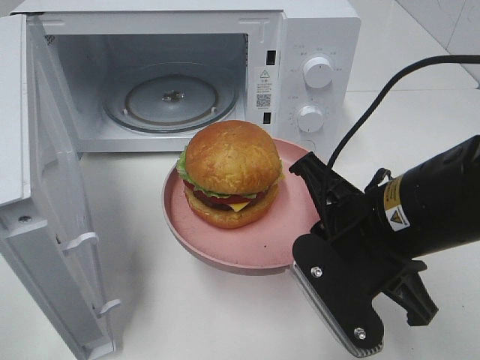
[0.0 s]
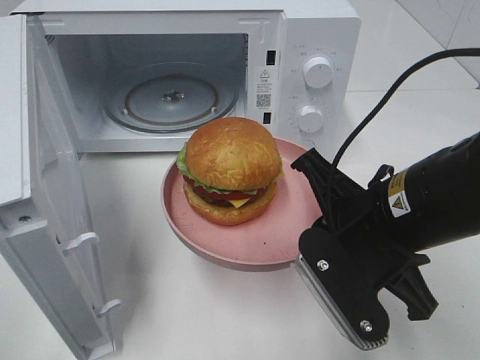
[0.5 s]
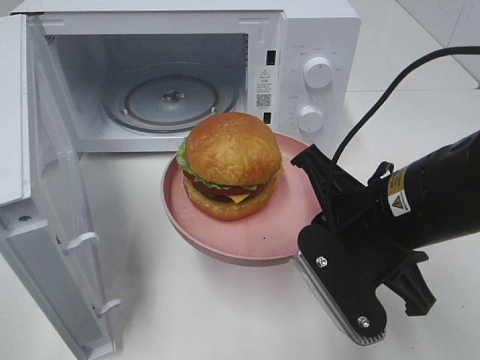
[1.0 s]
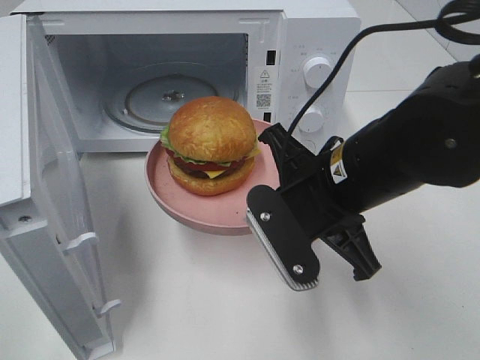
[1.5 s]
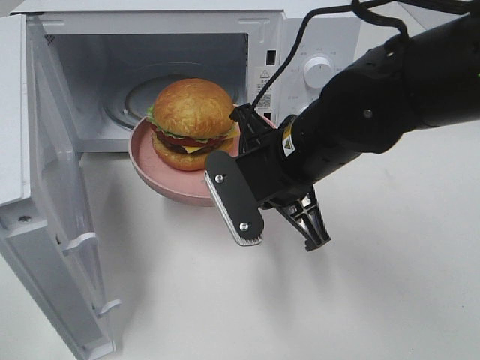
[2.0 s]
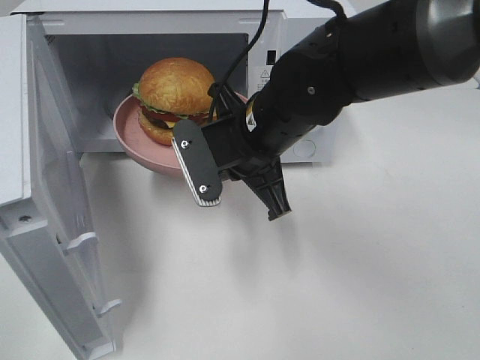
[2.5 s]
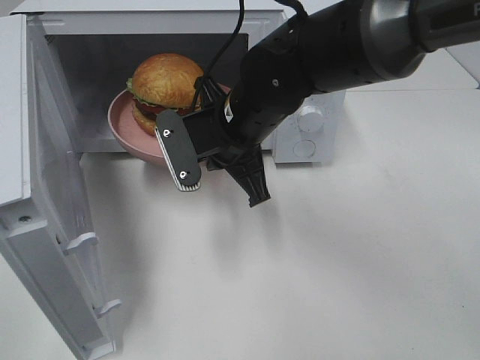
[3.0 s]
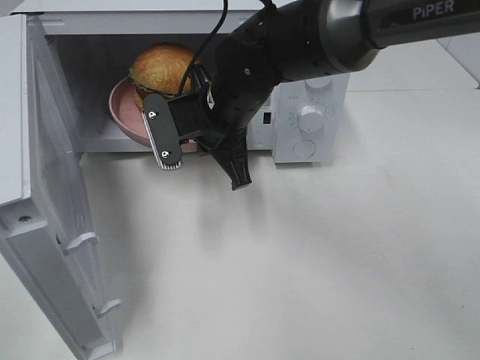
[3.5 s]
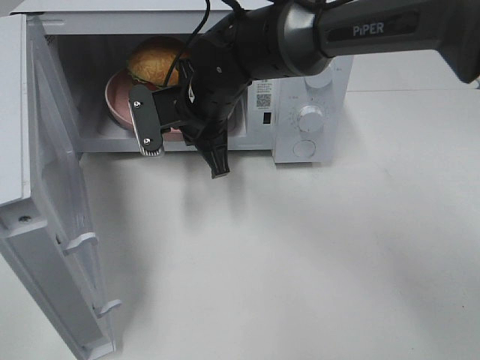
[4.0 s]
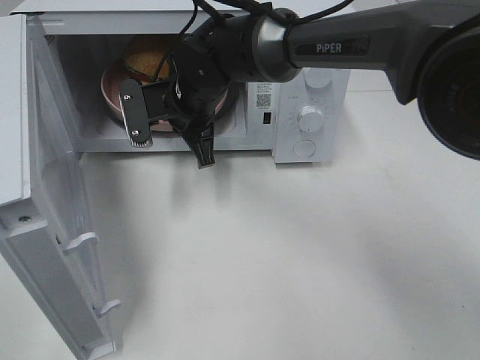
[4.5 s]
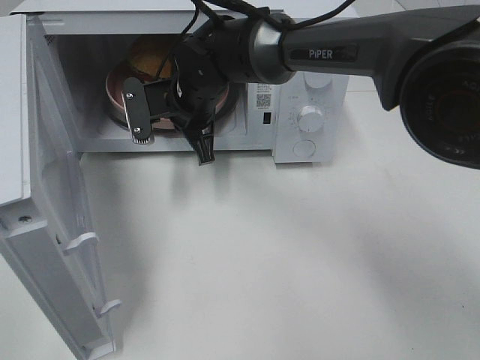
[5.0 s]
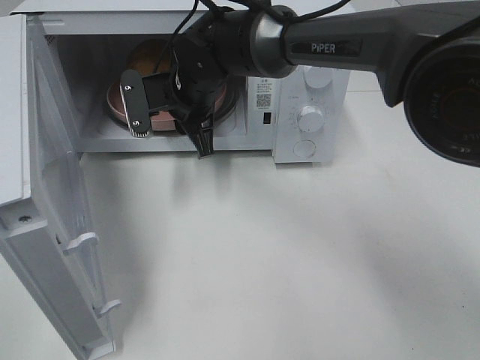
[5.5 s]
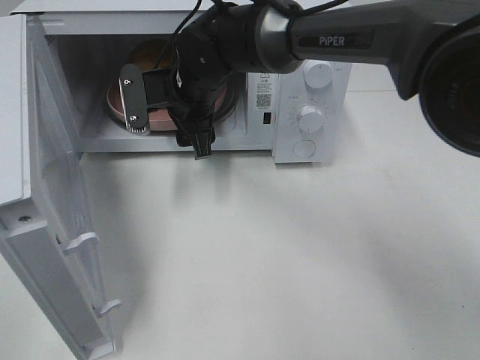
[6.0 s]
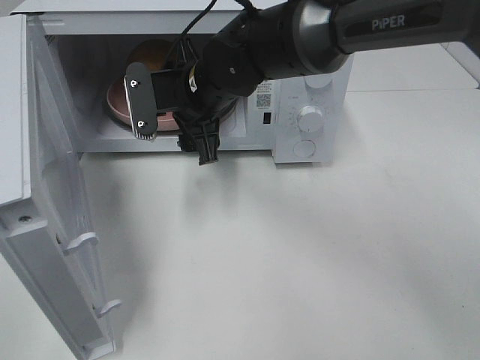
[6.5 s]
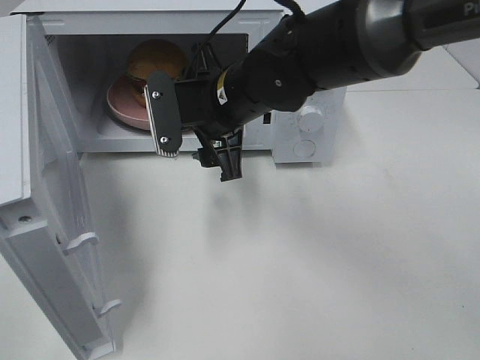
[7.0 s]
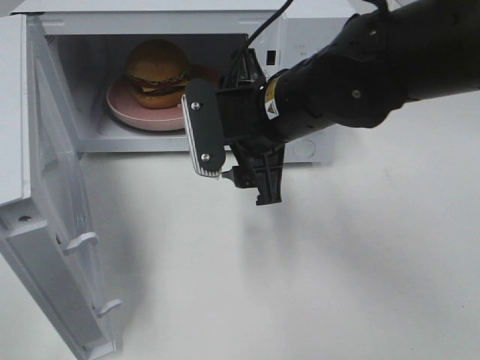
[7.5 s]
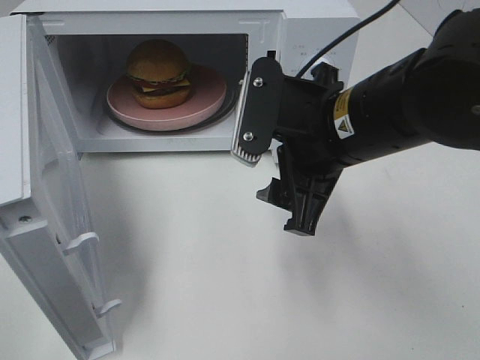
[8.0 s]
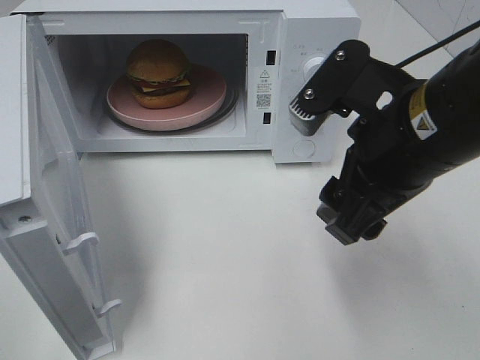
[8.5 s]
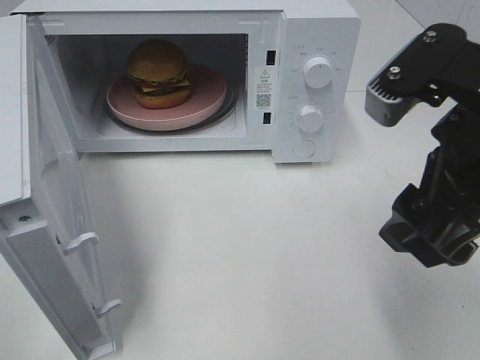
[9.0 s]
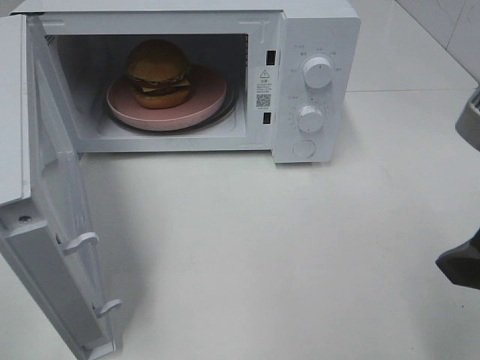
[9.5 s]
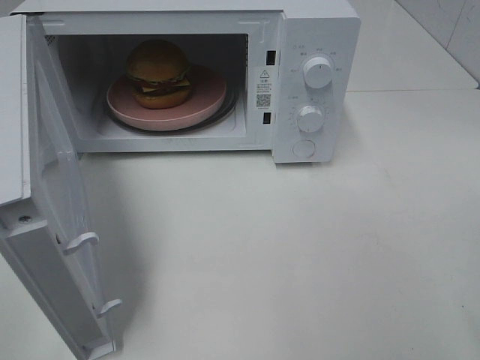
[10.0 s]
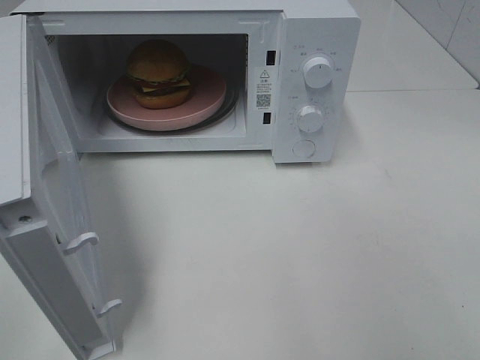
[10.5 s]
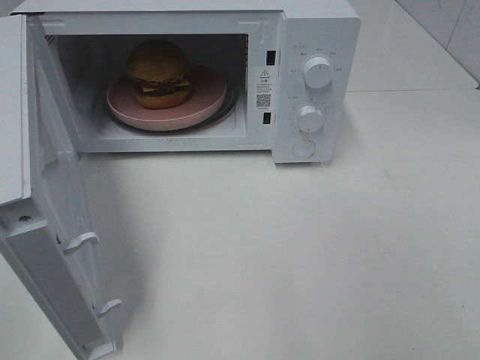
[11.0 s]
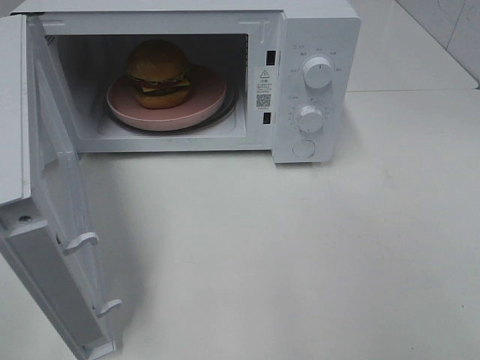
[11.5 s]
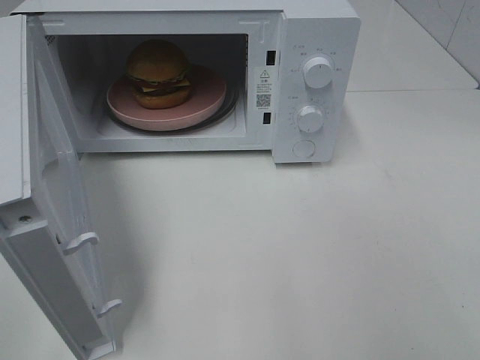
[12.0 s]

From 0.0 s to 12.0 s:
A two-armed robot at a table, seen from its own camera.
Task of the whole recording: Heat the burger.
Step, from 0.0 s to 5.0 s: Right hand: place the plate in the microwave.
From 0.0 s to 2.0 s: The right gripper travels forward and to the left by about 10 cm.
From 2.0 s to 4.0 s: The right gripper is displaced forward and to the left by some 15 cm.
From 4.0 s to 6.0 s: The right gripper opens up.
From 6.0 s to 8.0 s: The right gripper goes about 20 cm backward and to the right.
From 8.0 s to 10.0 s: The right gripper heads to the right and backward, covering roughly 20 cm.

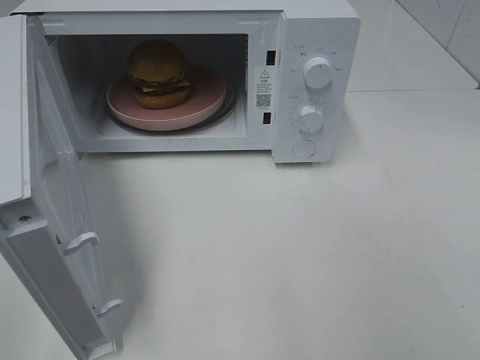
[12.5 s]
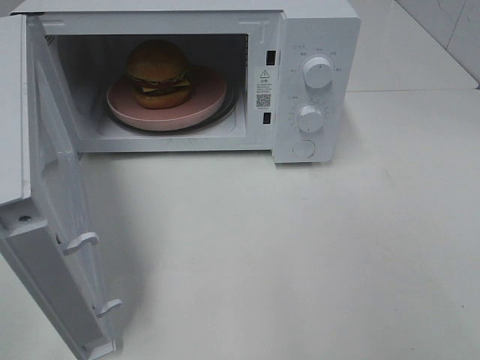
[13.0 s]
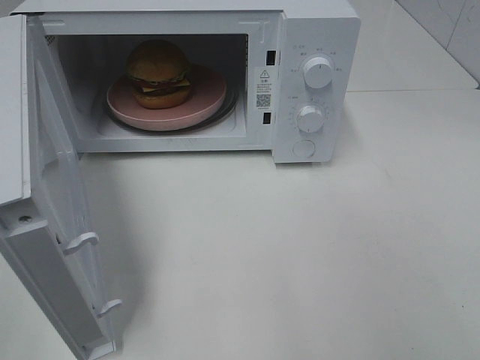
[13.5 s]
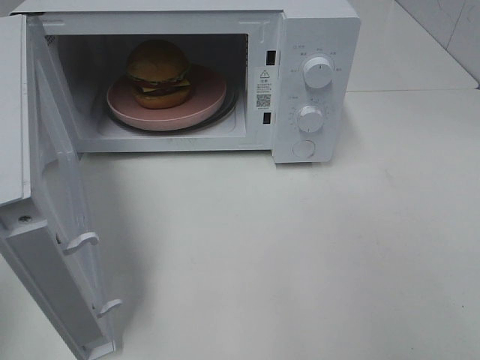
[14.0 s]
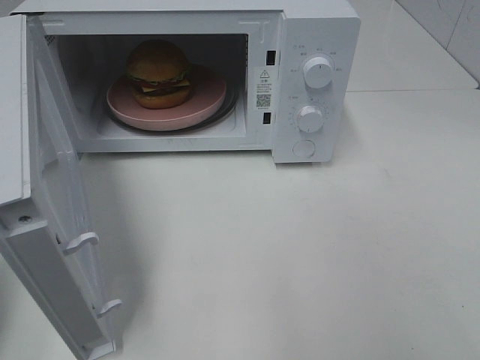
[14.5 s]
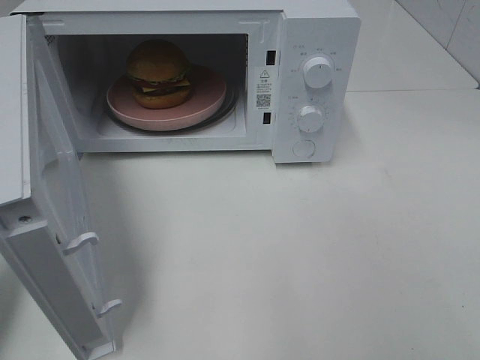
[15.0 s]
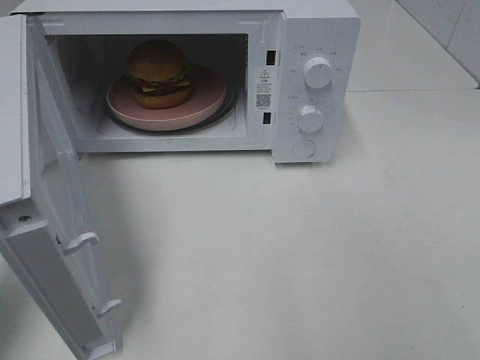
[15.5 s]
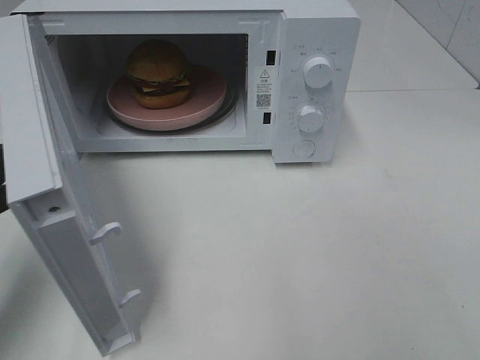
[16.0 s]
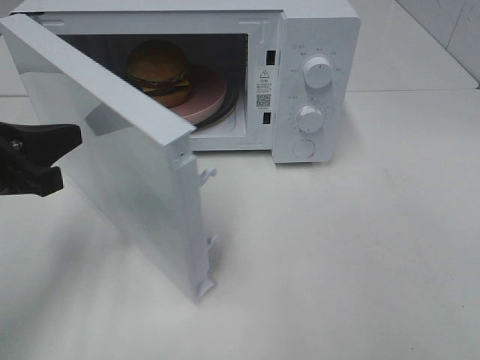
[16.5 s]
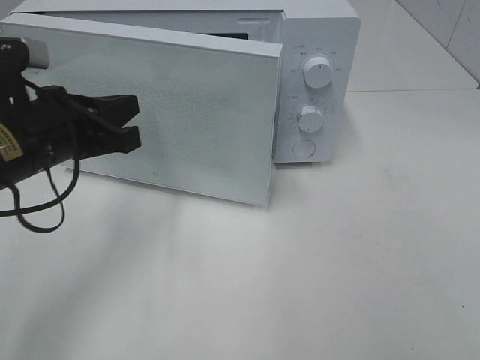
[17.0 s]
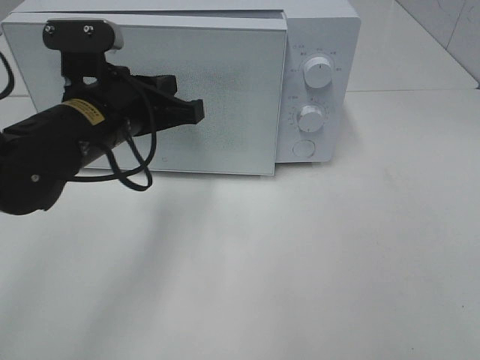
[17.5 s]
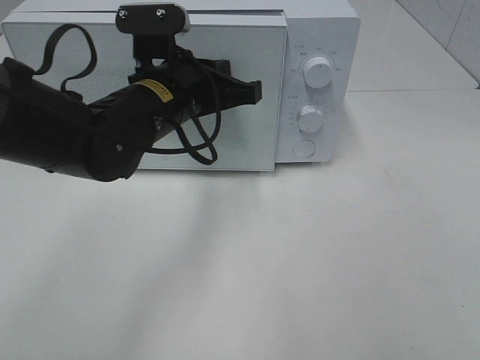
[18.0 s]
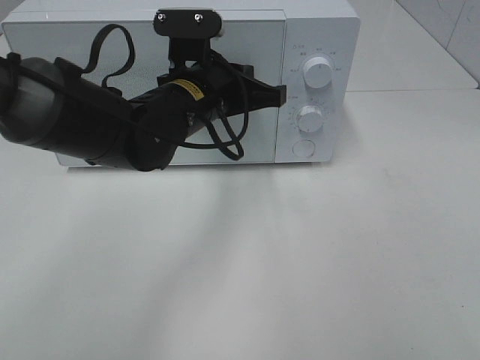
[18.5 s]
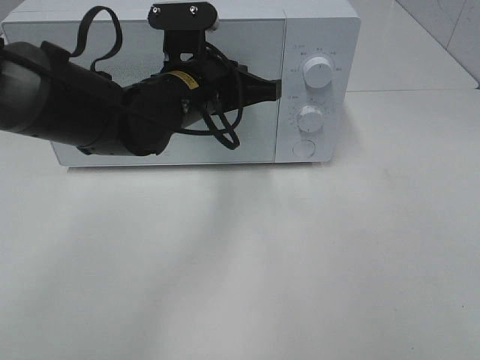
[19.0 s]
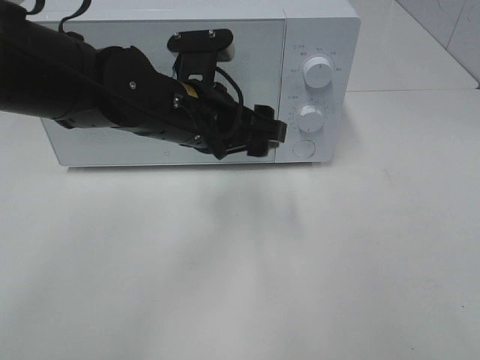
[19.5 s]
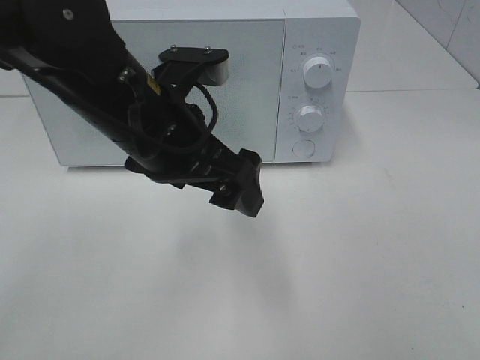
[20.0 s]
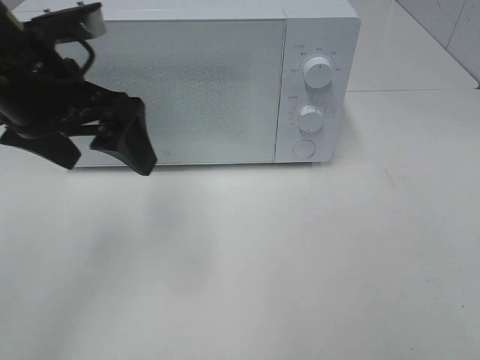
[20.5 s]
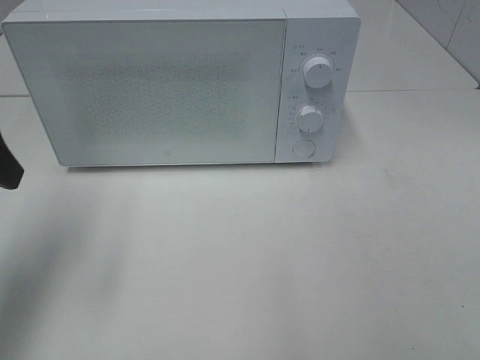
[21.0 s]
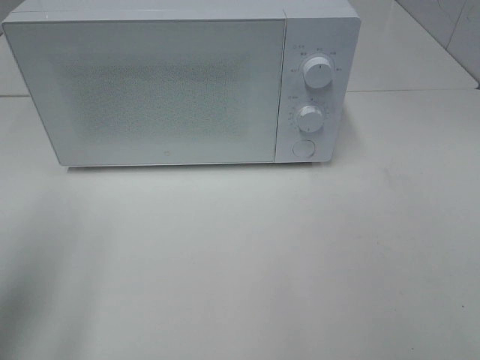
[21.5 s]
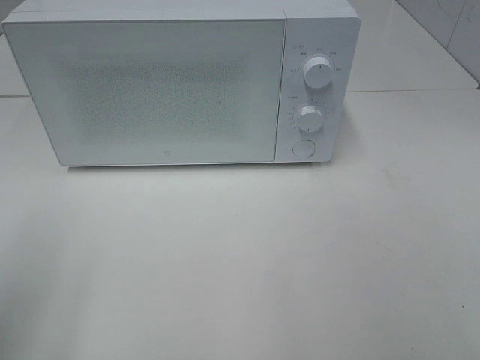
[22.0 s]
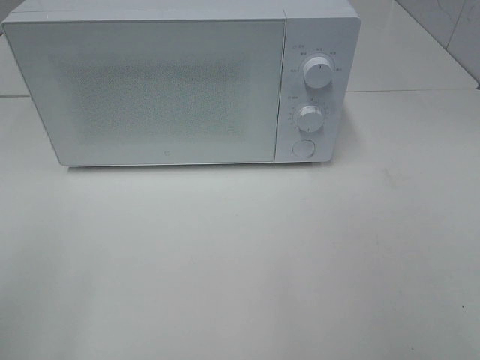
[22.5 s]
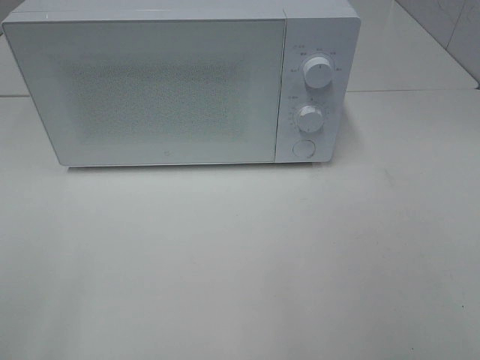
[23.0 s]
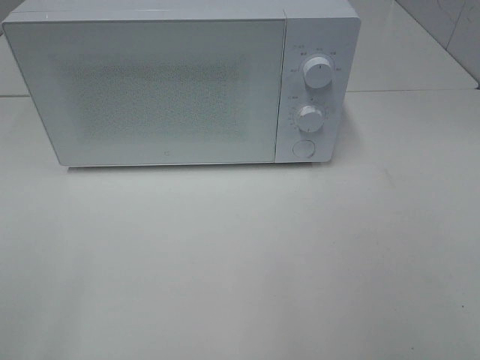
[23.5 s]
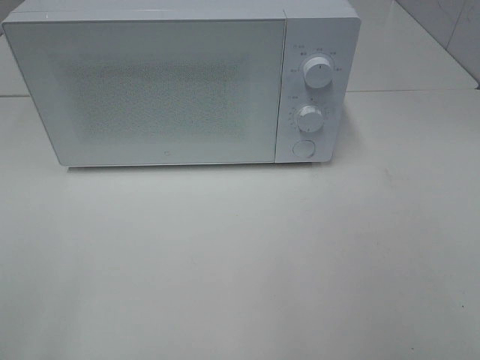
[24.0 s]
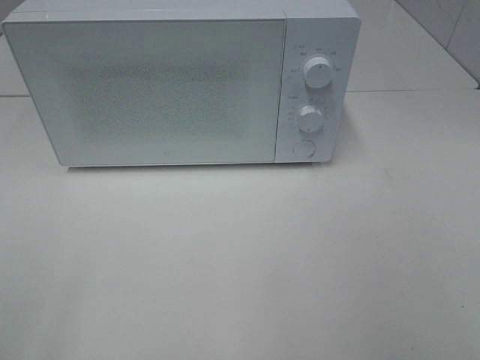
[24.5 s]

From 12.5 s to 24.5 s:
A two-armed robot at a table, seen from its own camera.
Task of the whole recording: Heat the burger.
Step, from 12.5 s to 19.0 s: Left hand: close the microwave door.
From 14.5 s to 16.5 s: The left gripper is displaced forward, to the right and downward by about 15 cm.
From 16.5 s to 18.5 s: The left gripper heads to the right and forward, covering some 25 cm.
From 18.5 s to 20.5 s: The left gripper moves to the left, upward and backward, some 15 cm, and opens its fingers.
From 20.5 s to 22.5 s: The left gripper moves backward and to the left, some 25 cm.

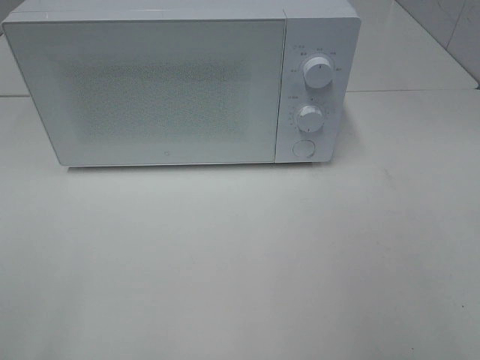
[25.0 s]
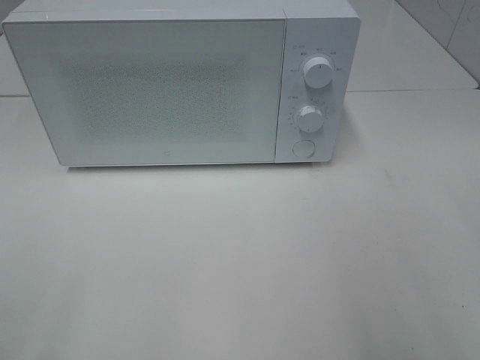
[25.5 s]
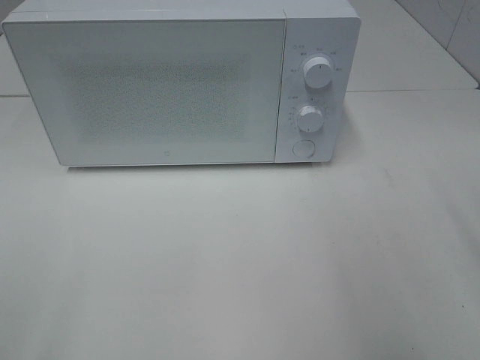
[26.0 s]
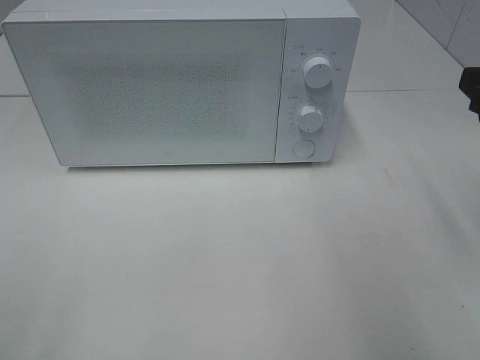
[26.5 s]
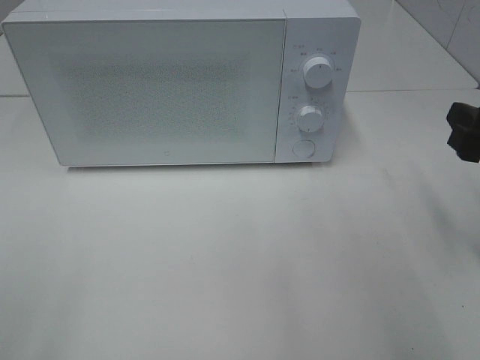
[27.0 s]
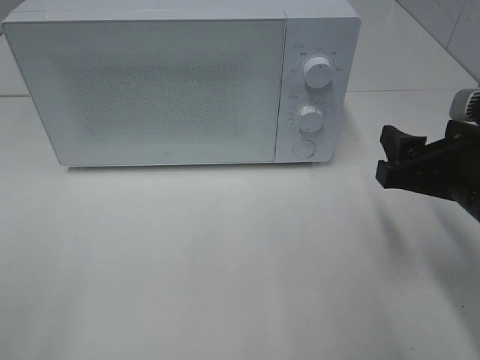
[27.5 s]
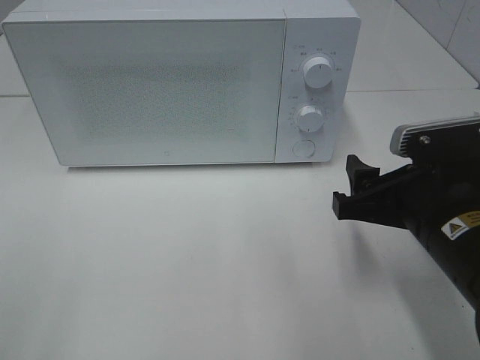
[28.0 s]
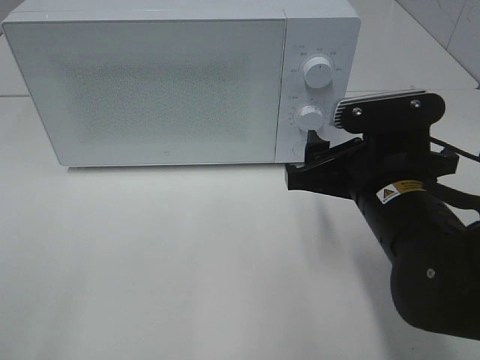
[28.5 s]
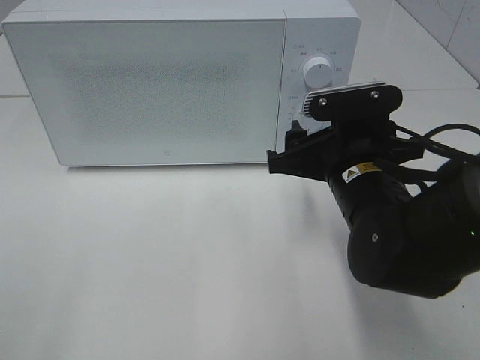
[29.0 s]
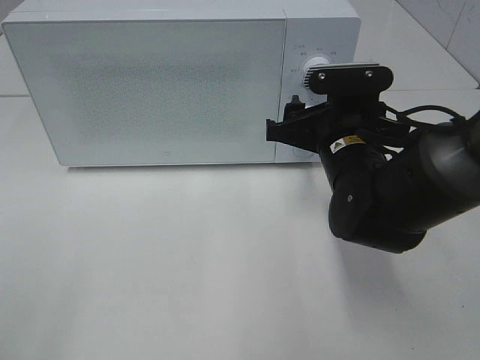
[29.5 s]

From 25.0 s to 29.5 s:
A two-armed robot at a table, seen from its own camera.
Task of the whole recording: Heat the burger.
From 25.0 s to 27.0 s: The right gripper shifts roughly 20 cm forward and downward.
From 27.0 s to 29.5 s: The right gripper is displaced to the left and forward by approximately 20 cm.
